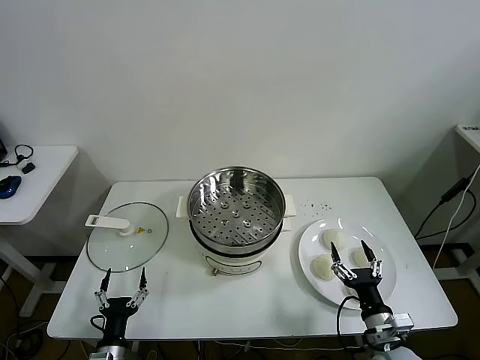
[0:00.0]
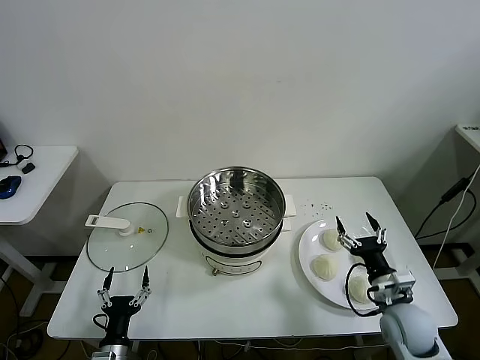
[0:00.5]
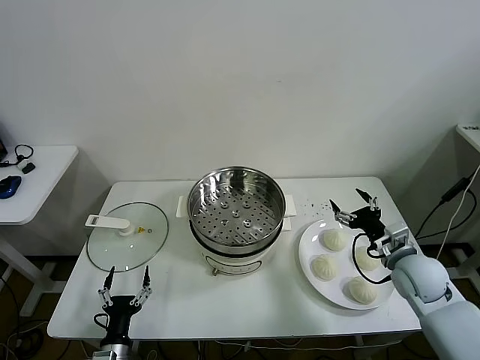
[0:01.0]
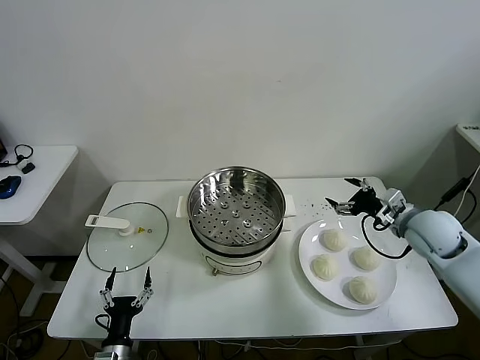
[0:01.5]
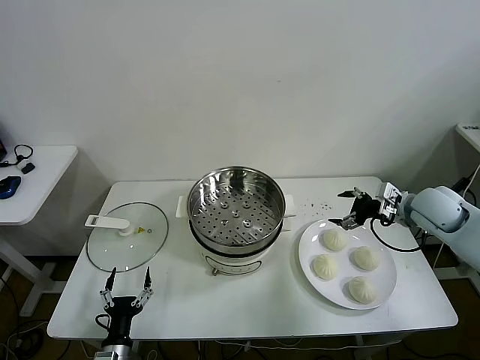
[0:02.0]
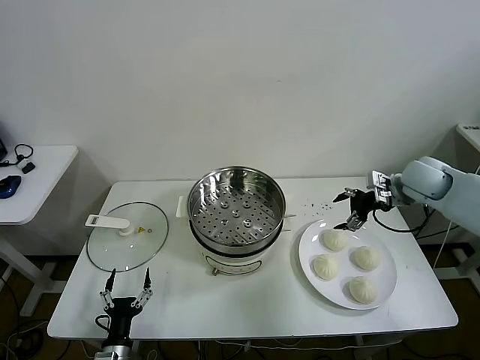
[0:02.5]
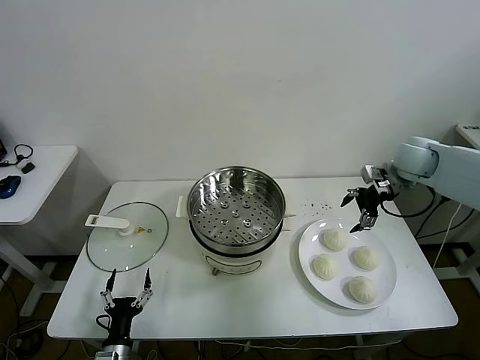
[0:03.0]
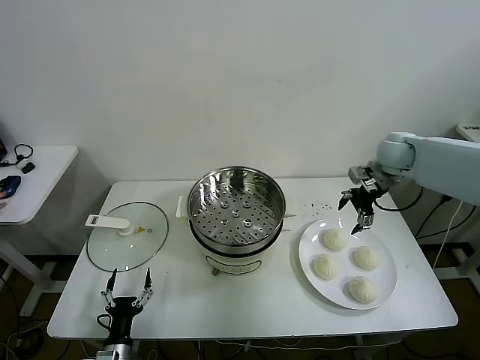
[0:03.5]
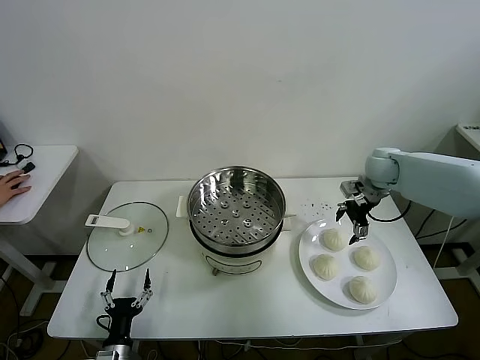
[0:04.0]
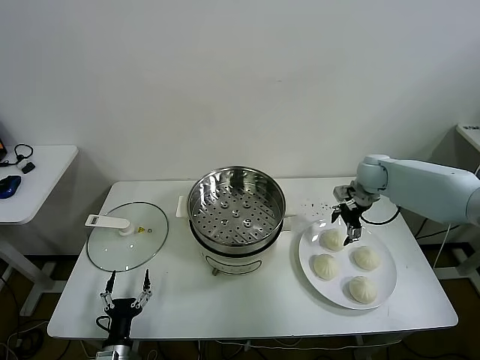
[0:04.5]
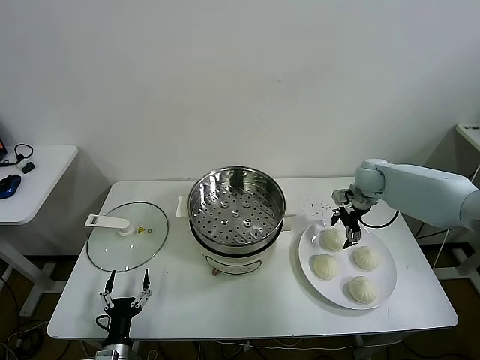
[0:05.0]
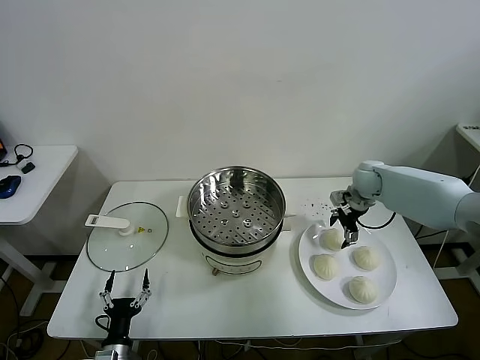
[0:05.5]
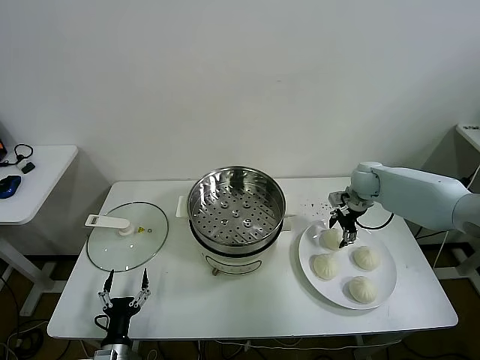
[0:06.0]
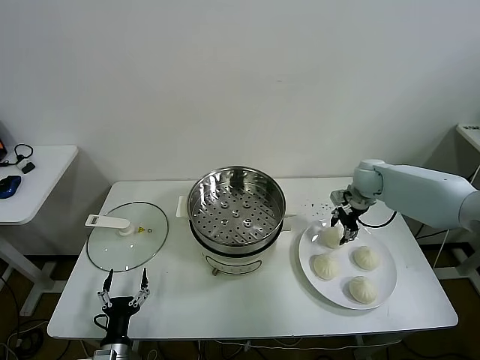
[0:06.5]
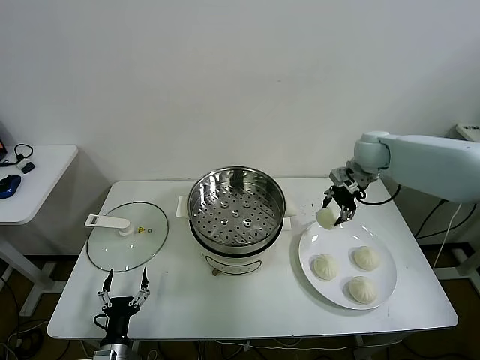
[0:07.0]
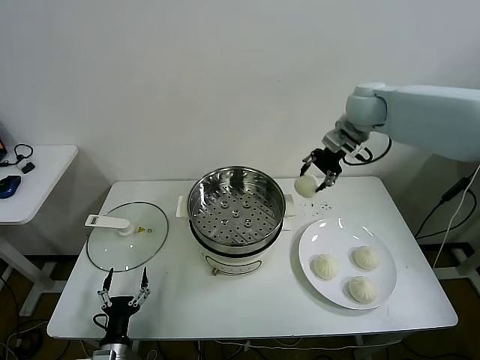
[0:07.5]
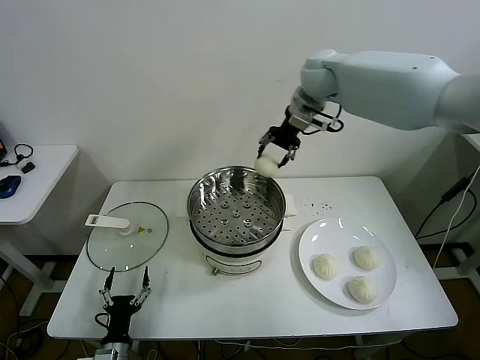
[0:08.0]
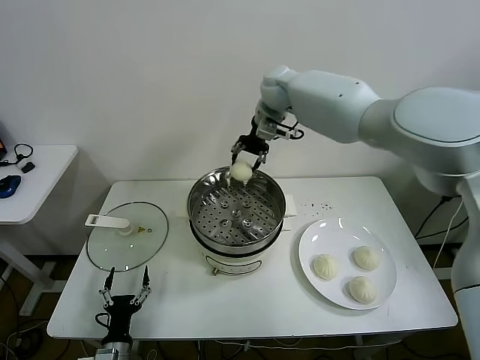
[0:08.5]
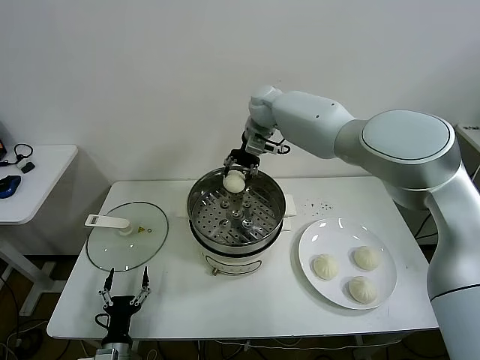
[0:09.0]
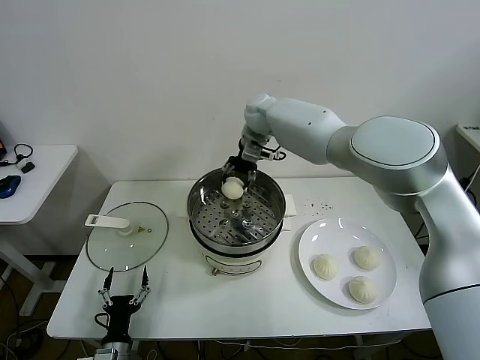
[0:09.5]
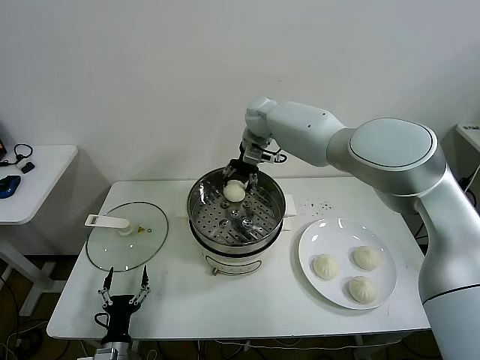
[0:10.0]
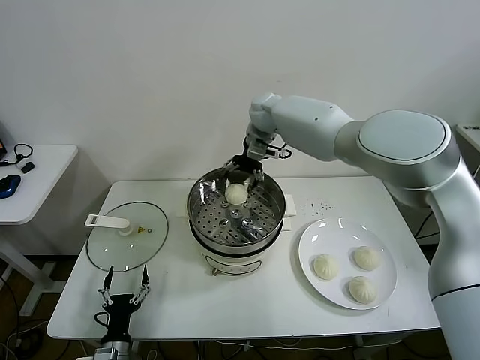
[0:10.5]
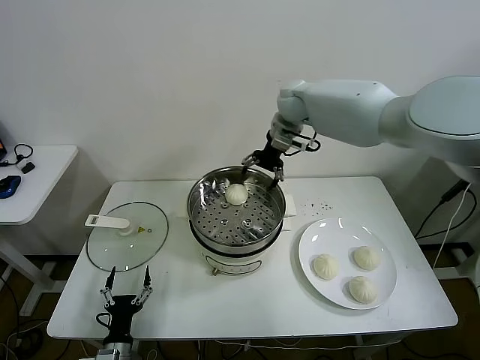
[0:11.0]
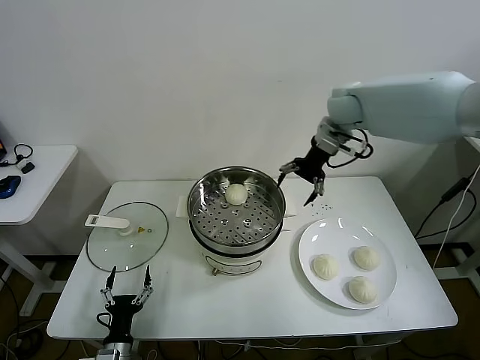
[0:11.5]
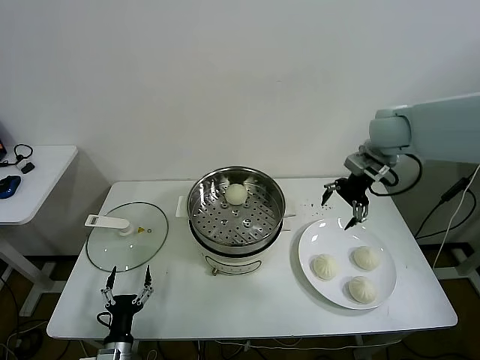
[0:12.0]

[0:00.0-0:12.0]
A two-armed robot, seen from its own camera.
Task of the whole recording: take steamed baozi put them in steamer.
Step, 0:00.0 to 0:06.0: Grasp the baozi in the plate with right gripper.
Step, 0:06.5 to 0:10.5: Place the baozi on the steamer with right gripper.
0:02.0 to 0:04.0: The right gripper goes some 15 cm forward and to the left.
0:04.0 to 0:06.0: The right gripper moves downward, approximately 5 cm.
0:06.0 to 0:08.0: The right gripper travels upward and to the left by approximately 35 cm.
0:08.0 to 0:10.0: The right gripper travels downward and to the left by about 15 cm.
0:10.0 to 0:12.0: The right gripper goes roughly 30 cm to the right and backward.

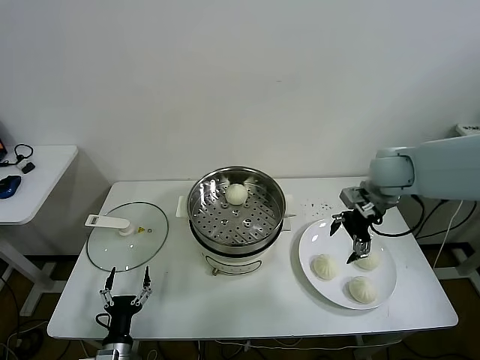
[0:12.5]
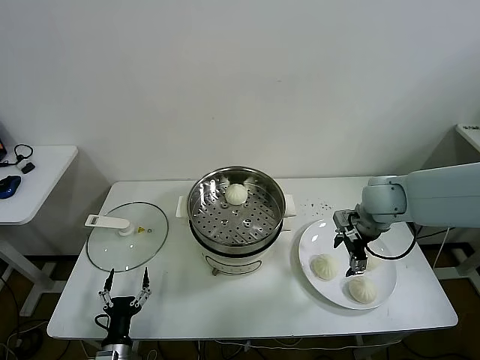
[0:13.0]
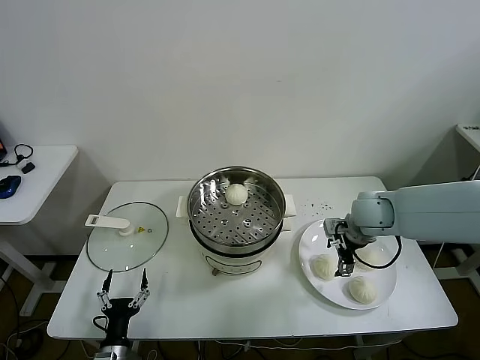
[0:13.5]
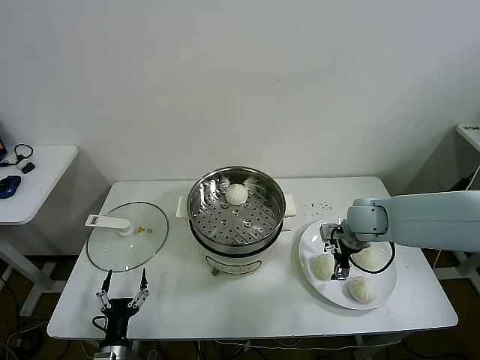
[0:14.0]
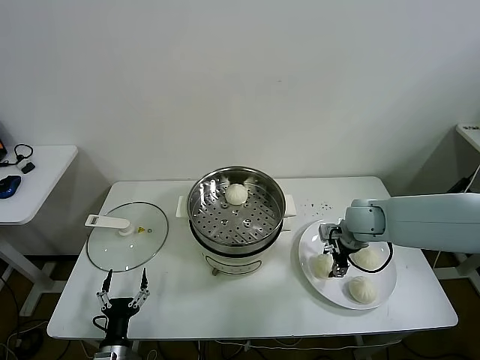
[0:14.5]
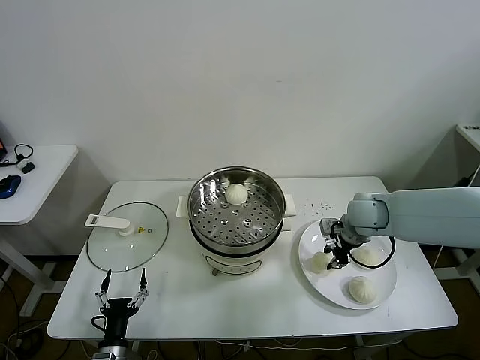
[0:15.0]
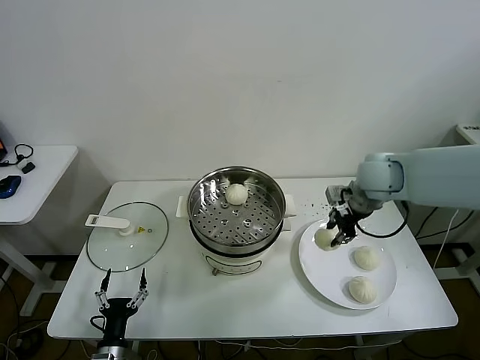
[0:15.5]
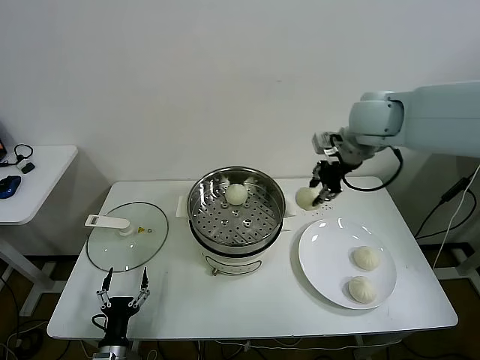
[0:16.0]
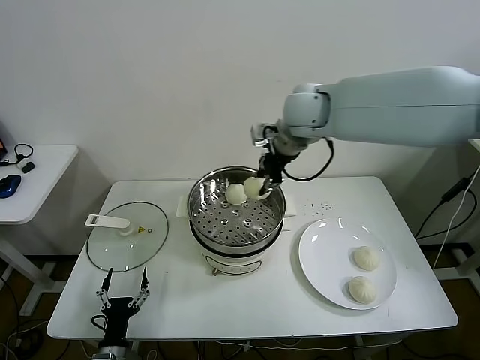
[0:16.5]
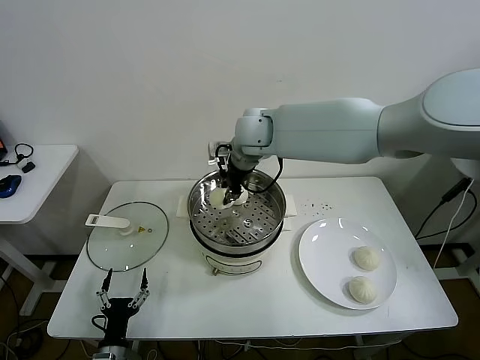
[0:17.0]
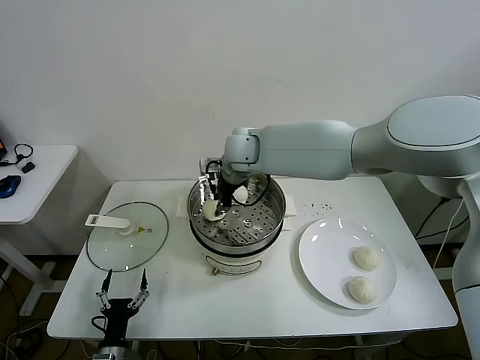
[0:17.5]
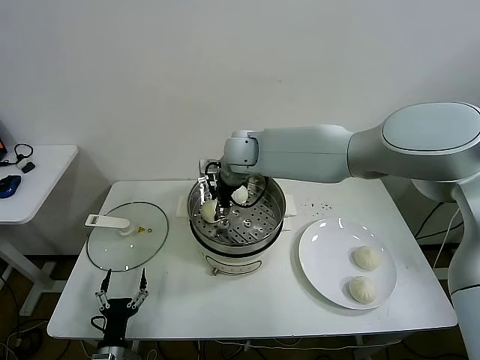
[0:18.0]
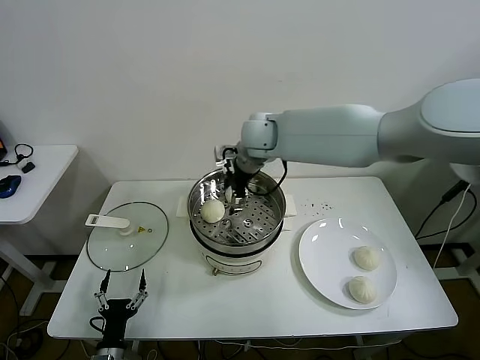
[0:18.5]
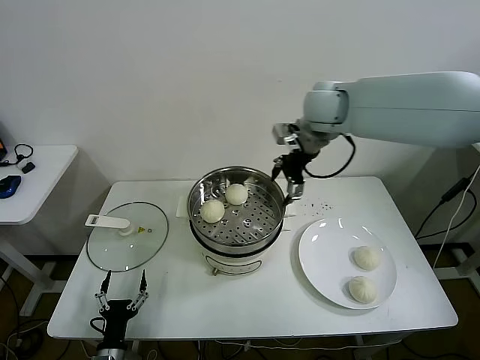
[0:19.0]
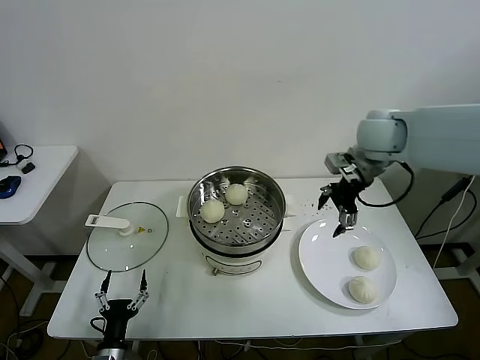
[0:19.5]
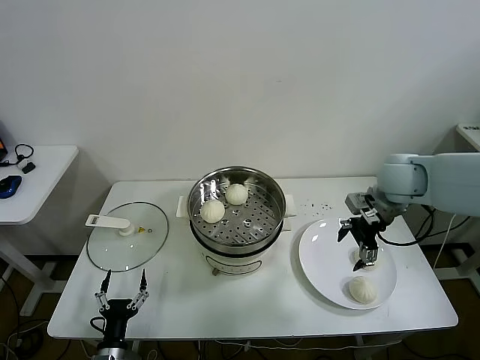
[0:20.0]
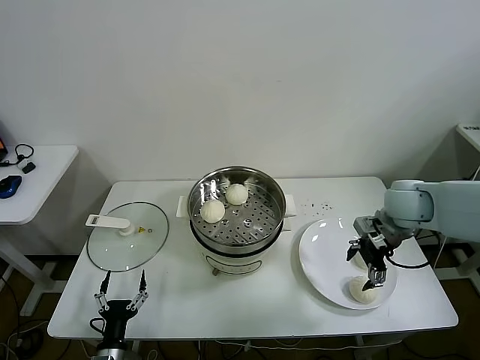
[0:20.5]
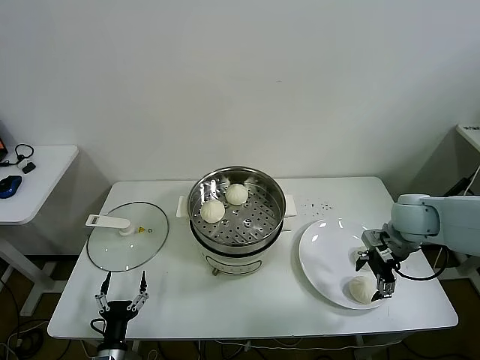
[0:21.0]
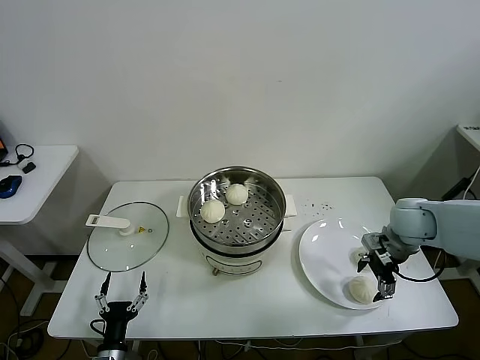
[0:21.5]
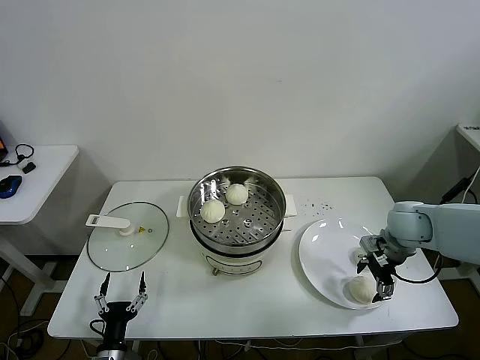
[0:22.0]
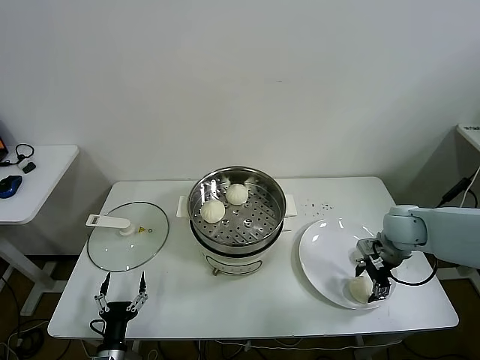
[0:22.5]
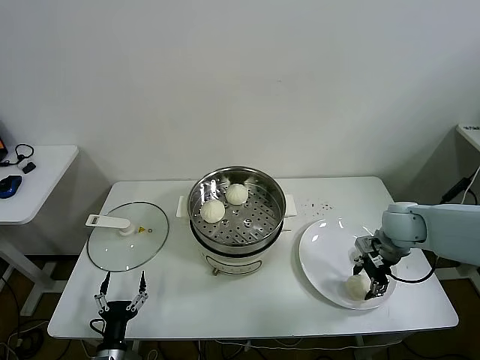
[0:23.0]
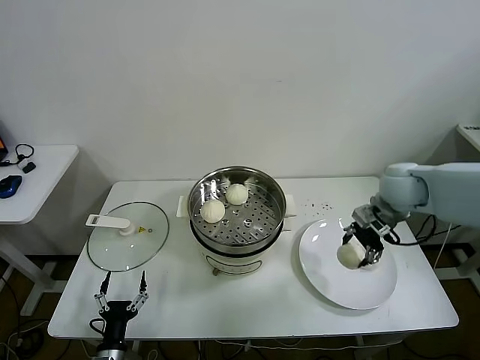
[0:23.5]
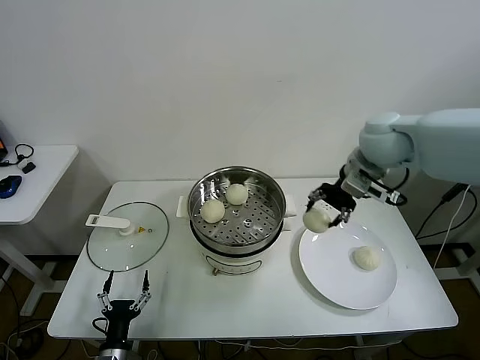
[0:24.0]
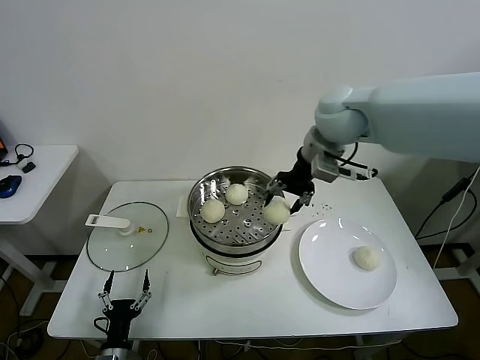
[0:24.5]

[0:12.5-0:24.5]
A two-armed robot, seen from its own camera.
Task of the whole recording: take steamed baozi put them in steamer.
Step, 0:12.5 to 0:14.5: Grasp the baozi in the plate with right gripper.
Step, 0:15.0 to 0:18.0: Place the baozi on the steamer with right gripper.
Step, 0:18.5 to 0:22.5: Grasp the baozi in the plate with right gripper.
0:12.5 to 0:14.5: The right gripper shifts approximately 10 cm downward, and closes.
0:14.5 to 0:16.5: The right gripper heads upward and to the left, covering roughly 30 cm, and closes its fingers.
0:16.5 to 0:18.5: The right gripper is displaced downward and to the left by approximately 10 cm, and opens its fingers.
0:18.5 to 0:20.5: The right gripper is displaced to the right and backward by approximately 30 cm.
0:20.5 to 0:22.5: The right gripper travels downward by approximately 5 cm.
0:22.5 to 0:24.5: The right gripper travels upward and to the left by about 30 cm.

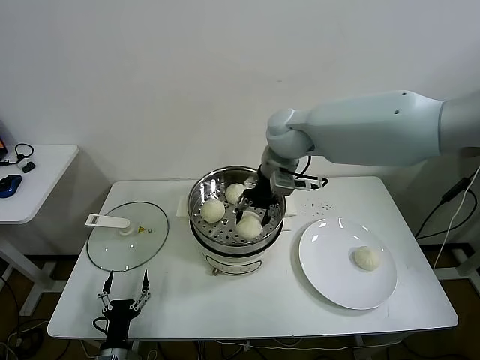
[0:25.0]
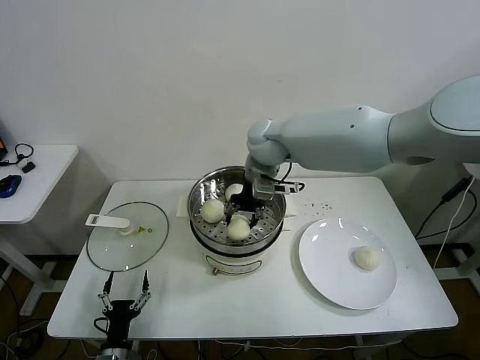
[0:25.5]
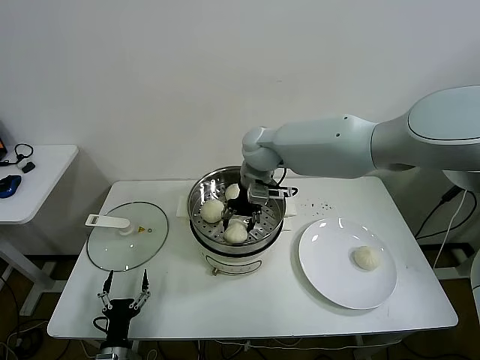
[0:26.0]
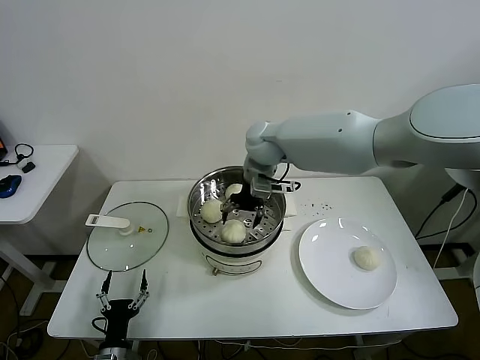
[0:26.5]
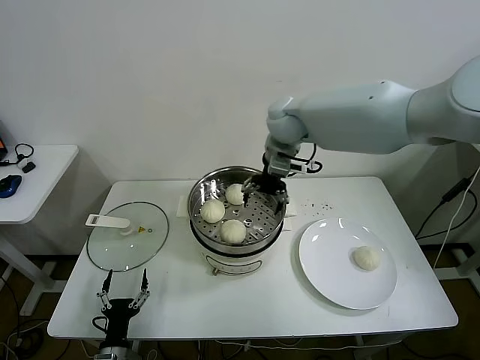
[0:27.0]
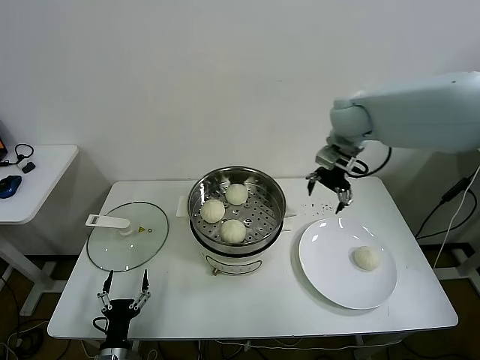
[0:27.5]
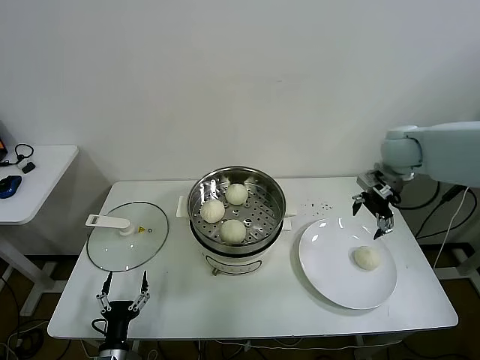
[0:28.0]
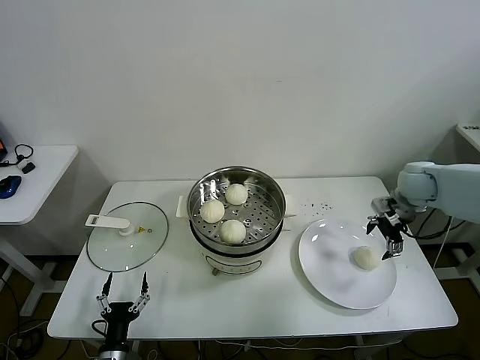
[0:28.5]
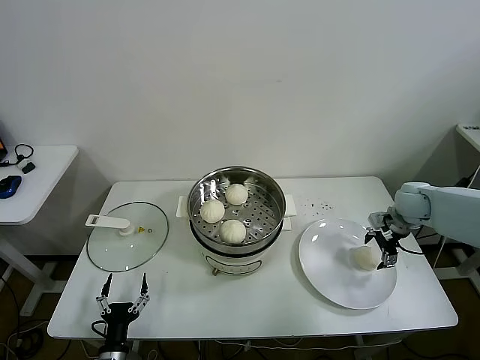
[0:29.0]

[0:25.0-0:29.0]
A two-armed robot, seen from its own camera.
Task of the whole recording: take steamed baozi put them in steamer.
0:25.0 to 0:27.0: The right gripper opens up.
0:27.0 to 0:29.0: The right gripper heads to the right and downward, covering about 40 cm.
